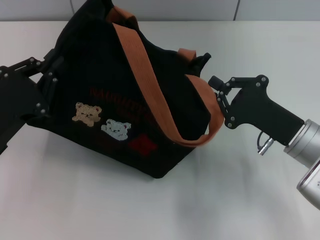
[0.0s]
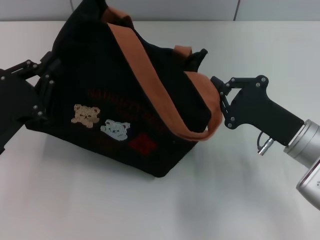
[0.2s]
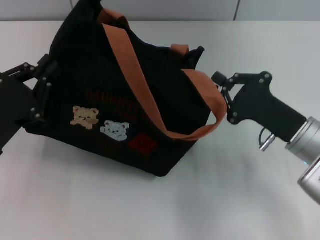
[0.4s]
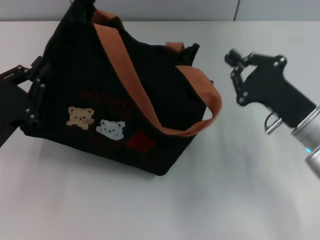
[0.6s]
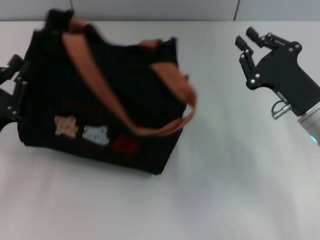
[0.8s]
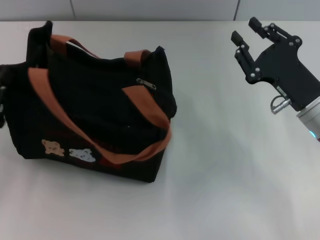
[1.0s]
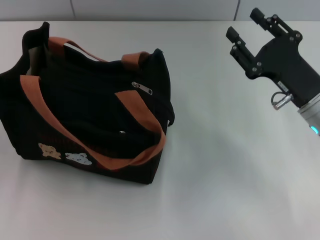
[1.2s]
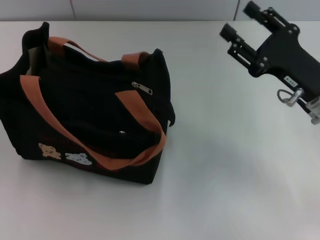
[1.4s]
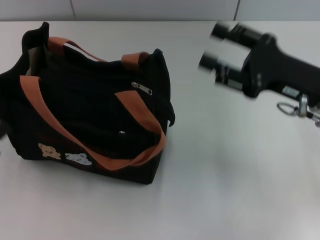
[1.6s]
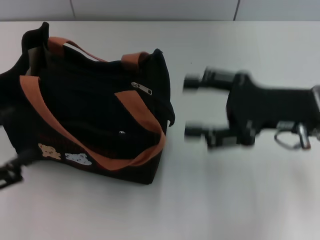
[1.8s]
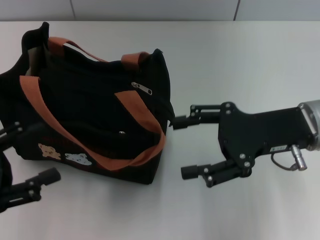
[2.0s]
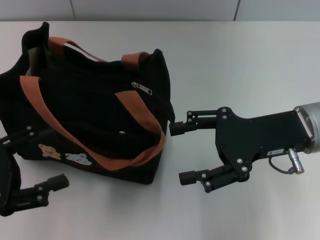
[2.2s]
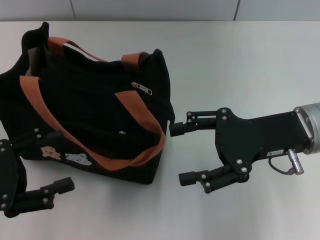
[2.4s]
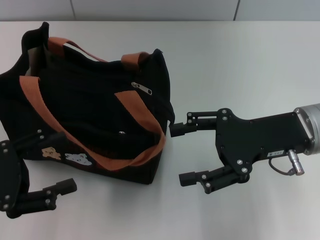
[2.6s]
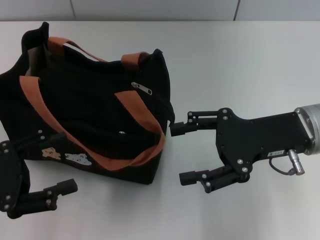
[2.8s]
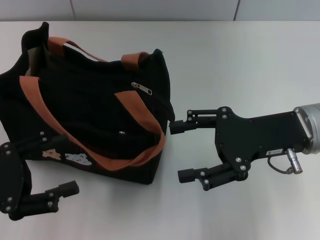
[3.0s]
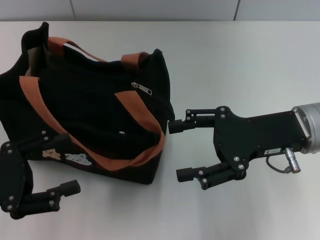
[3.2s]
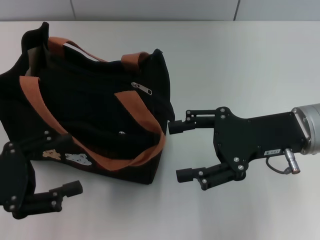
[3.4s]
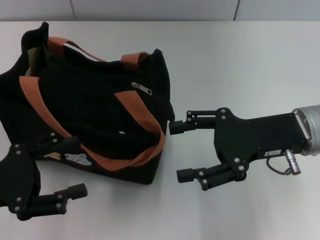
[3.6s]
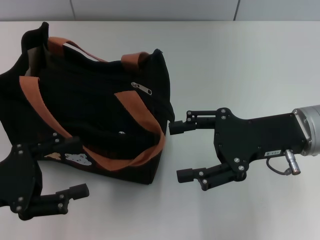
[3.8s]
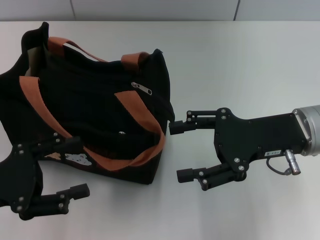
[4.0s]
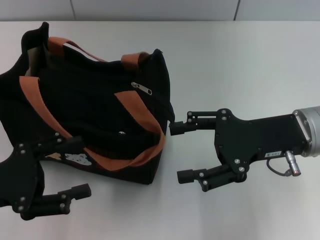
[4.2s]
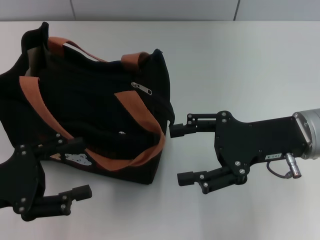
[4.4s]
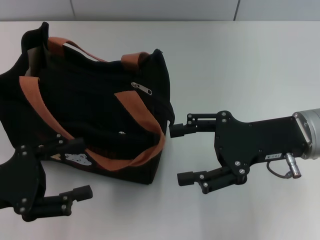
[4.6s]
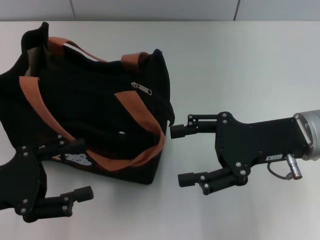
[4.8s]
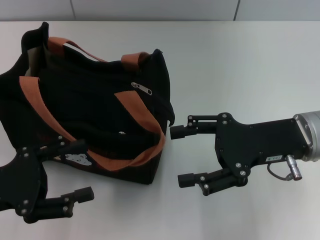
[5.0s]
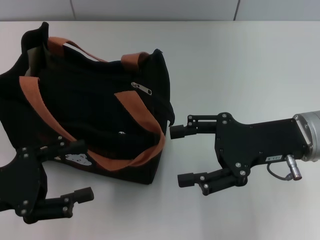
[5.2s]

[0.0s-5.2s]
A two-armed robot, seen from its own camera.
Step, 0.6s to 1.0s: Grab the bag with your left hand.
0.0s to 1.8s: The left gripper travels to the left and backward by about 10 cm, and opens its fingers, while the right gripper goes some 10 cm upward, and opens up.
1.8s to 3.4s: The grippers make only small movements.
3.4s to 5.2s: Neither gripper changes place.

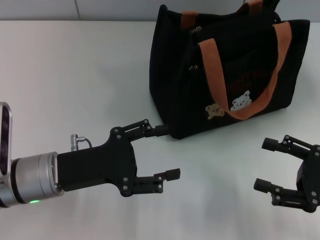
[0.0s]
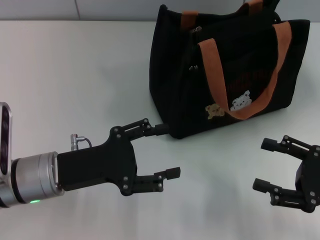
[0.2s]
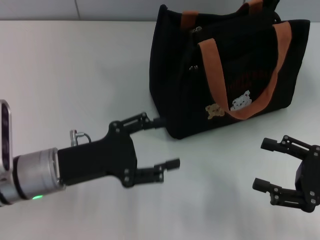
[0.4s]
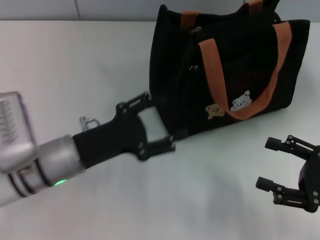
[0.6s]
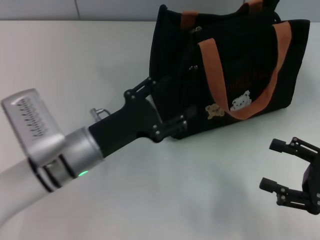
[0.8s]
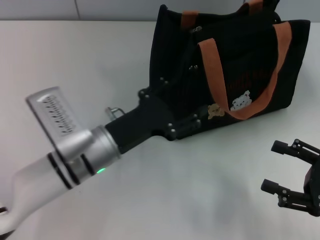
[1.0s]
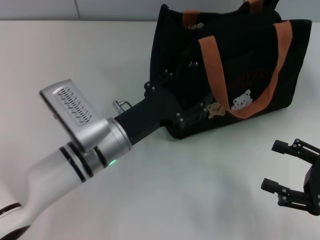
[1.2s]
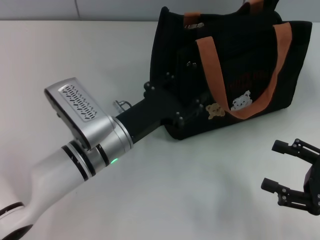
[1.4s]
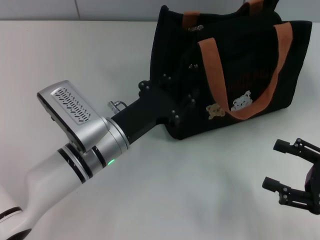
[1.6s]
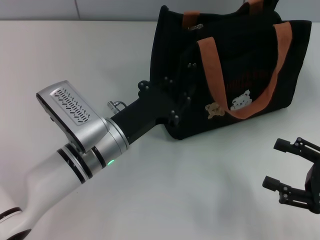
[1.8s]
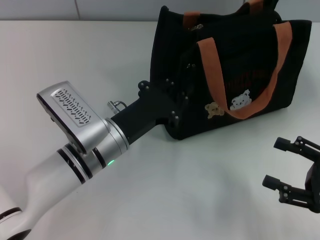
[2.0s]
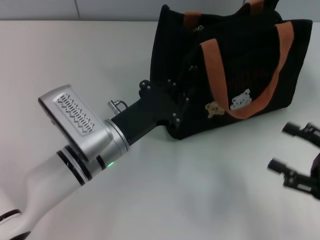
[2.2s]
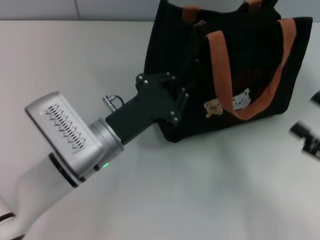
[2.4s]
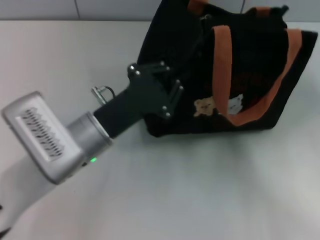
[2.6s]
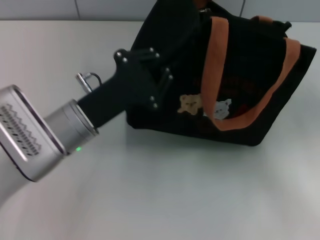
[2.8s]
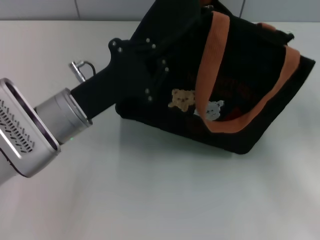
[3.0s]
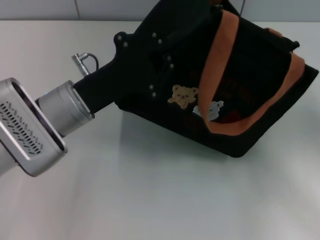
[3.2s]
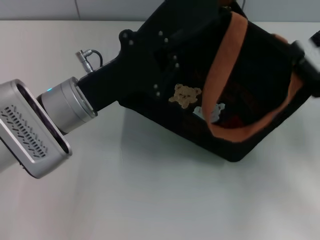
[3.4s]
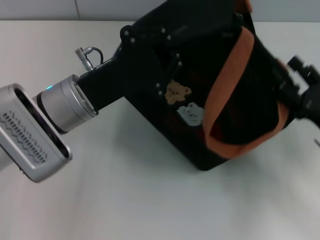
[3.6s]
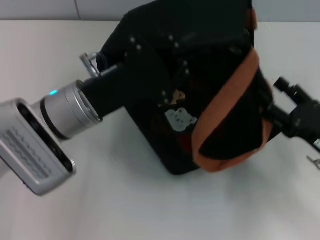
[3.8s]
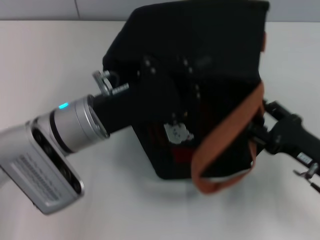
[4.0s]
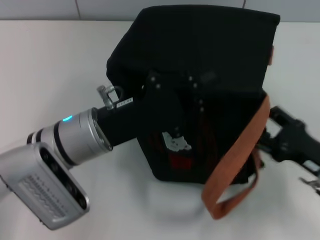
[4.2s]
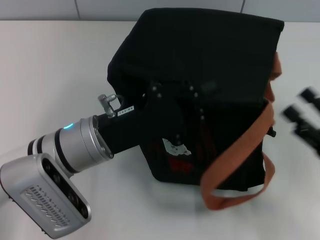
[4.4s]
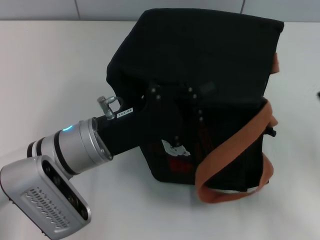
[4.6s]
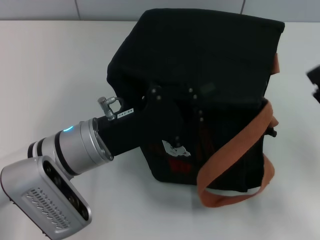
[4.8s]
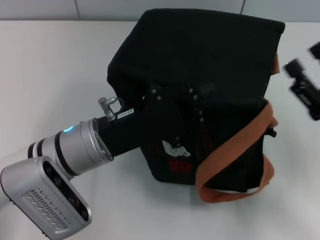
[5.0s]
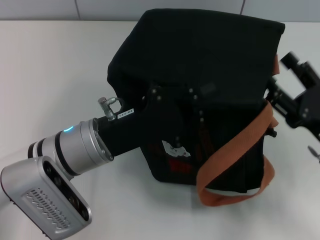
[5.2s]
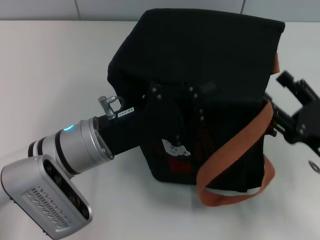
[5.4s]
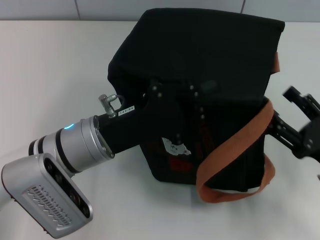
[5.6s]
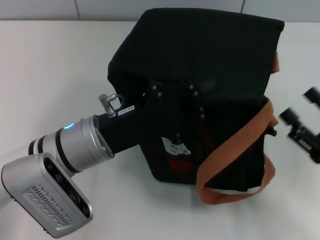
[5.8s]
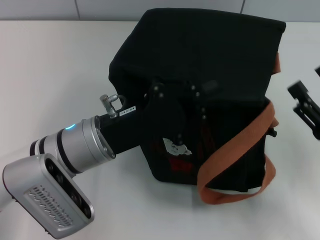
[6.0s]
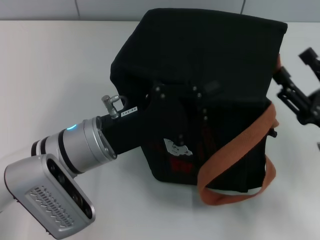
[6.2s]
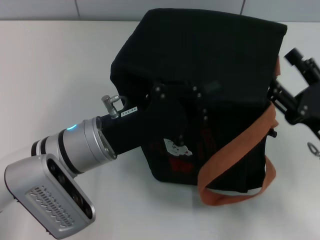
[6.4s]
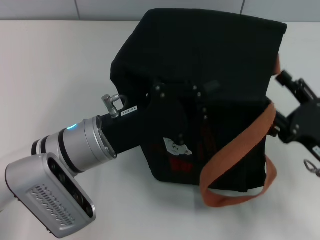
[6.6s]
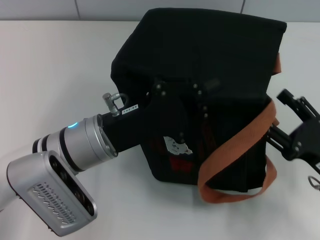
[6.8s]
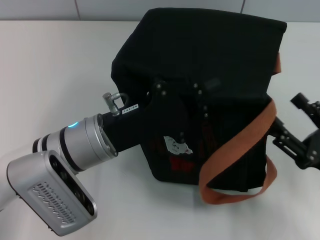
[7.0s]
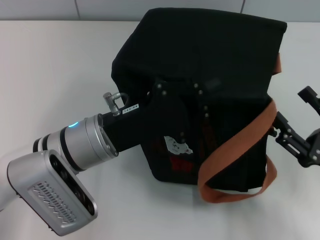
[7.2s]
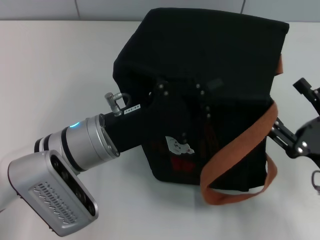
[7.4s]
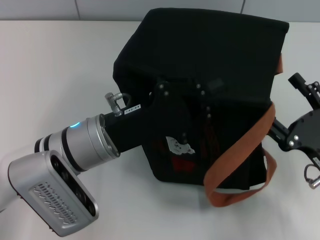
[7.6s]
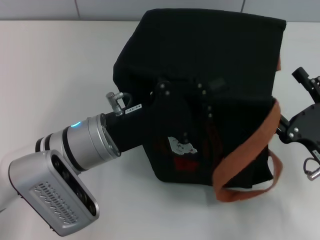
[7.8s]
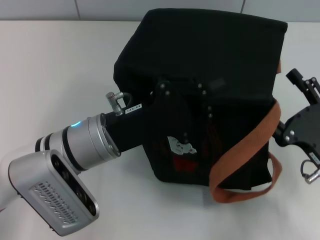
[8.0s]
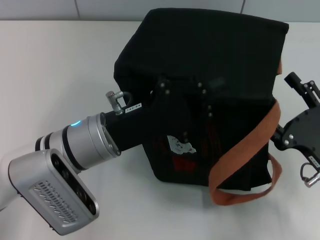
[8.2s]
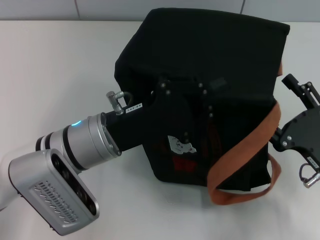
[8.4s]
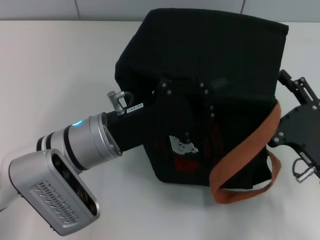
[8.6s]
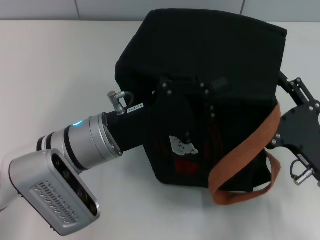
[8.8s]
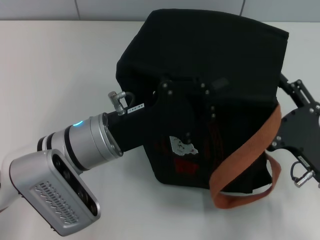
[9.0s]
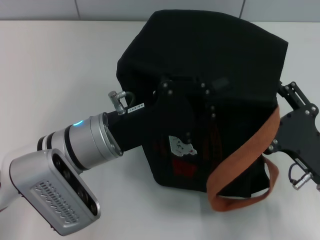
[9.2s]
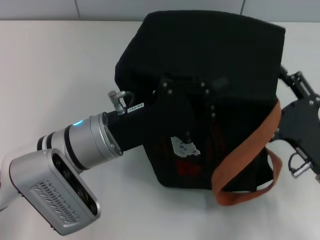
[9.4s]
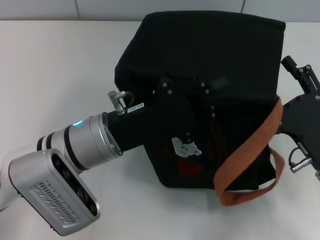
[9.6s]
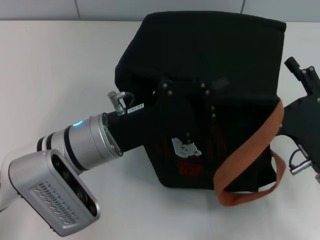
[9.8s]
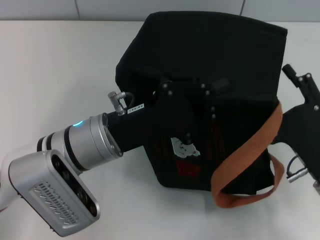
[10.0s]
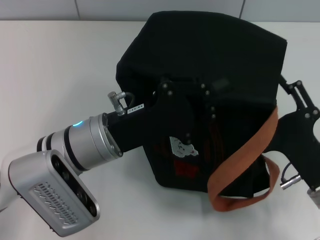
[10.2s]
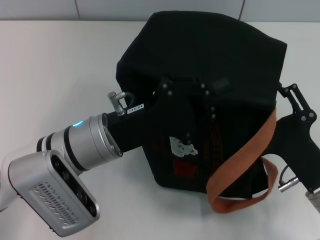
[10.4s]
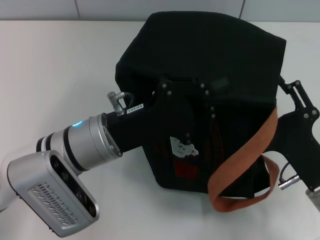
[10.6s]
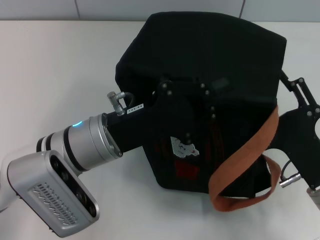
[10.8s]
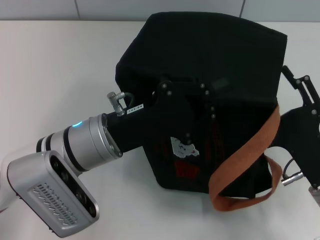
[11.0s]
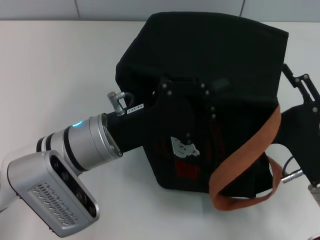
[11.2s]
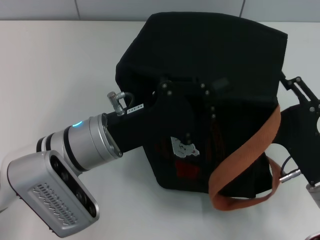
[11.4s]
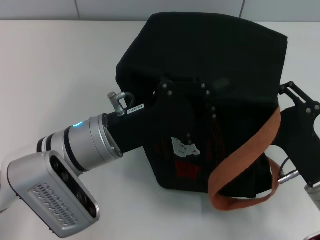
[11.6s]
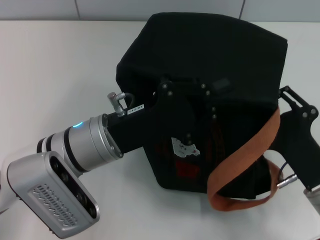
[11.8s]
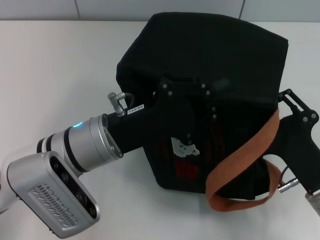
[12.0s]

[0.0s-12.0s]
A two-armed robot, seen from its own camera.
0.0s to 1.6s: The left gripper moves to the right, approximately 10 cm.
1.6s to 3.0s: The left gripper changes place by about 5 cm, and closes. Meanwhile the right gripper ends up roughly 5 cm from where it was.
3.0s to 4.4s: The right gripper shifts by roughly 5 cm.
4.4s to 6.0s: The grippers stay close to where they were, moving slightly.
6.0s to 7.6s: There are only small adjustments of the grippers.
7.6s to 9.0s: The grippers move only a little.
10.4s to 12.0s: The right gripper closes.

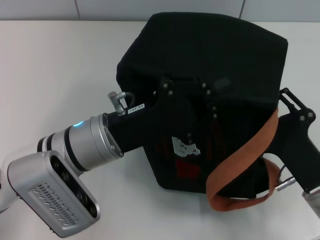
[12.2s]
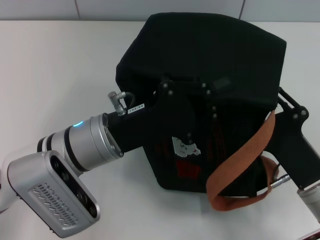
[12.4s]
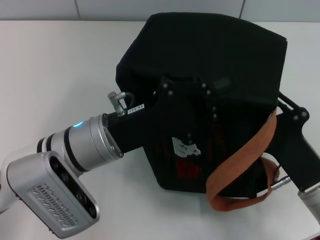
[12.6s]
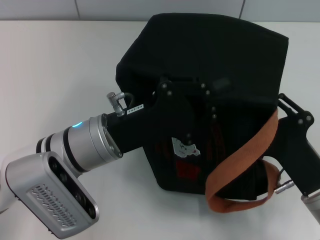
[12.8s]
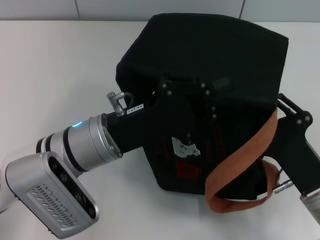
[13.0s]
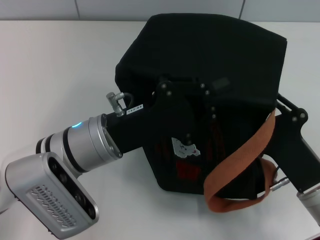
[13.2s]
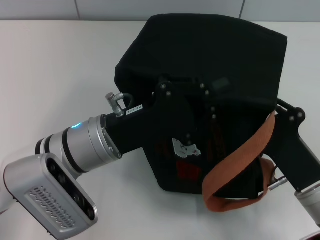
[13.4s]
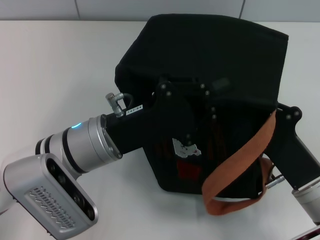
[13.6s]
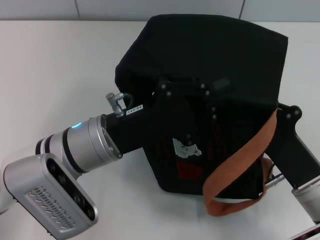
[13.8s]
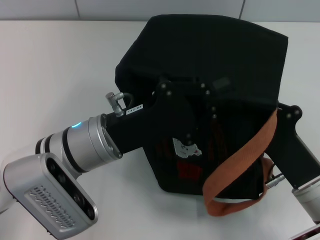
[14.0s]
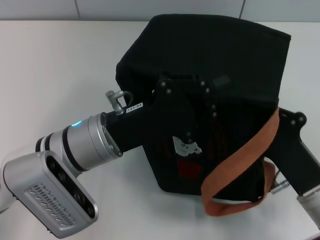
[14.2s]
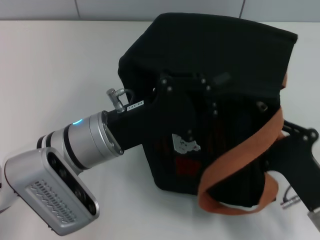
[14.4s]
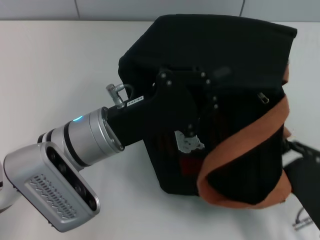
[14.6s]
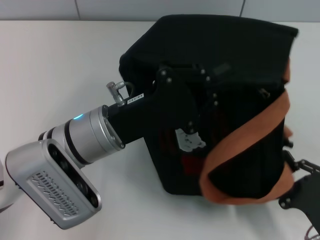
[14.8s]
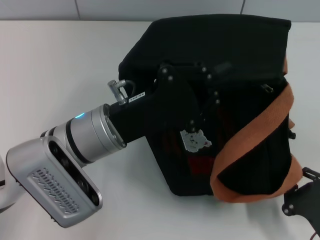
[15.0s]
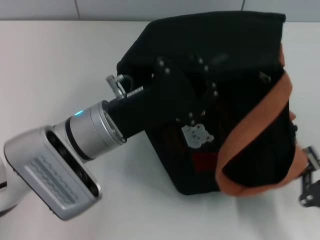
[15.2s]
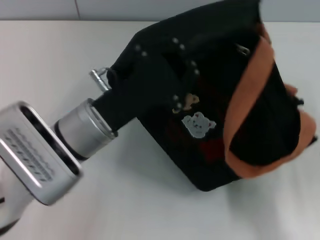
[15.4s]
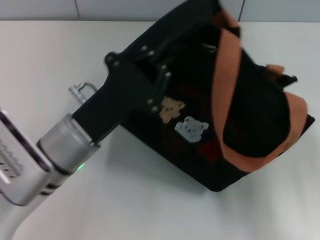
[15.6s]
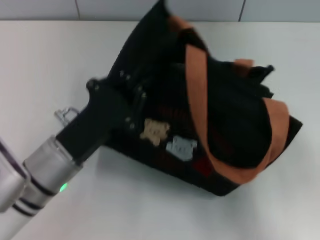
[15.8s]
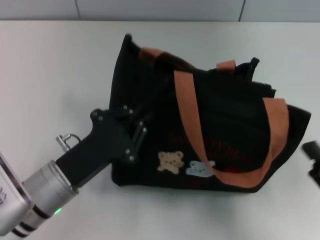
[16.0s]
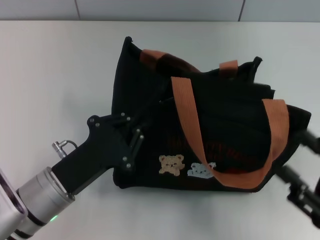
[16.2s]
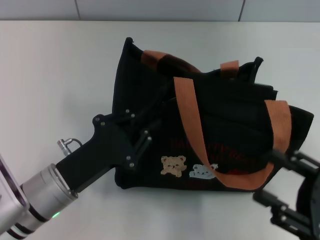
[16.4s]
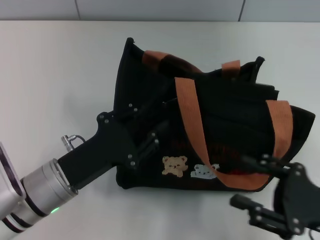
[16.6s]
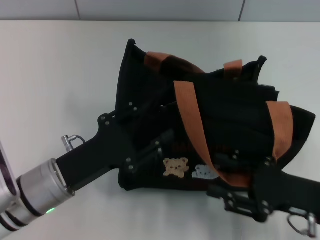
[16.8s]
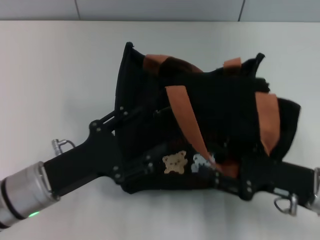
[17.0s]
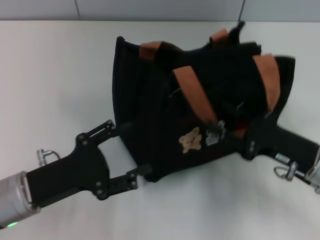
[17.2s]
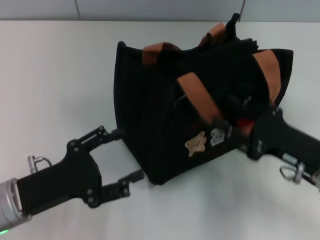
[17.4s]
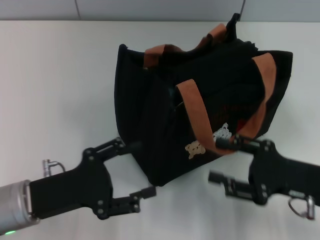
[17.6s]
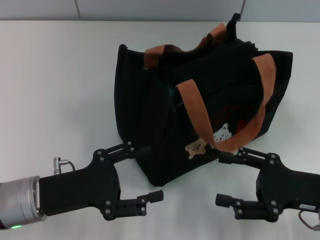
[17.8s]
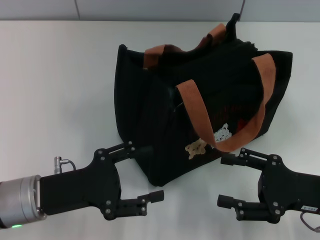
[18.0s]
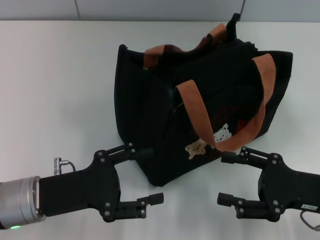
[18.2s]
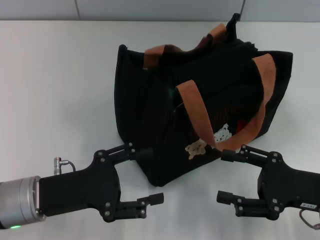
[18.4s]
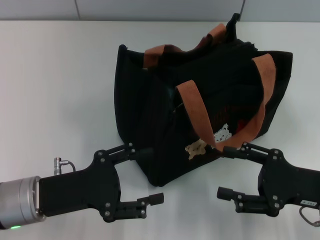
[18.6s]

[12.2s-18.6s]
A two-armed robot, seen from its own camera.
Step, 12.2s to 15.2s: Pull open the zipper with your right hand.
Step, 15.4s to 17.2s: Grab the bag with your left hand.
12.2s to 13.8s: The right gripper closes up.
13.8s to 15.4s: The right gripper is displaced backward and to the right by about 10 cm.
15.4s to 17.0s: The right gripper goes roughly 10 cm forward, and opens up; the left gripper travels to the left and backward by approximately 10 cm, and opens its fingers.
